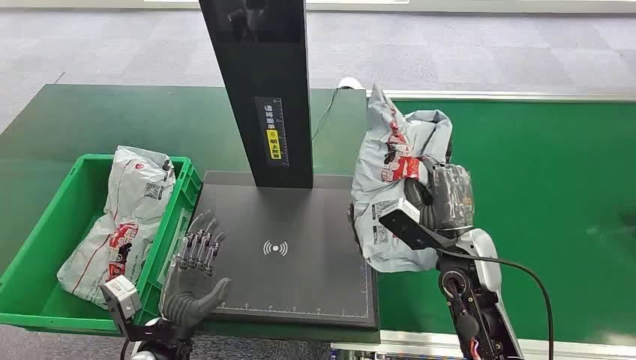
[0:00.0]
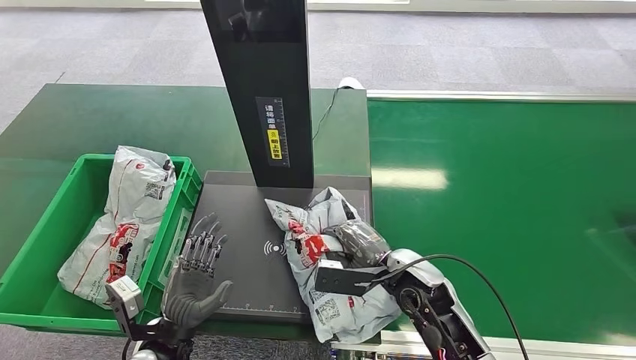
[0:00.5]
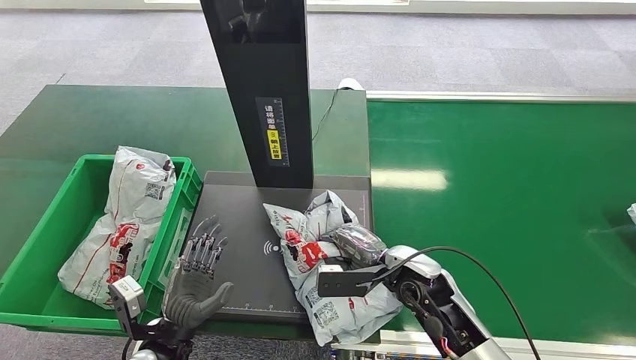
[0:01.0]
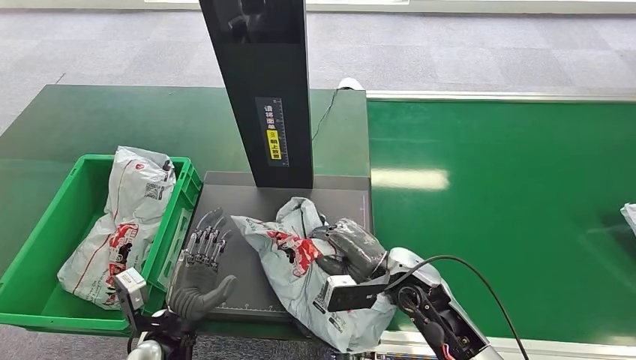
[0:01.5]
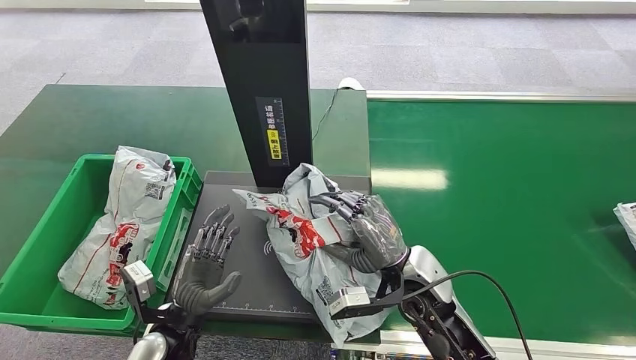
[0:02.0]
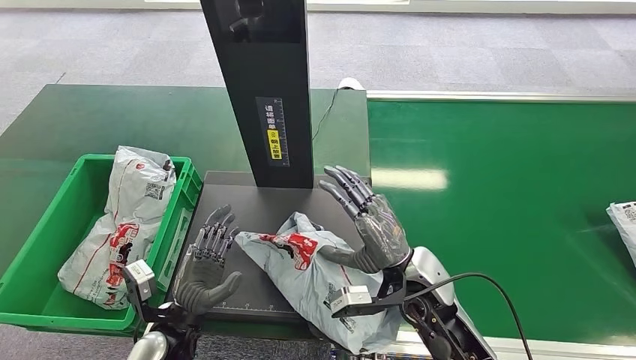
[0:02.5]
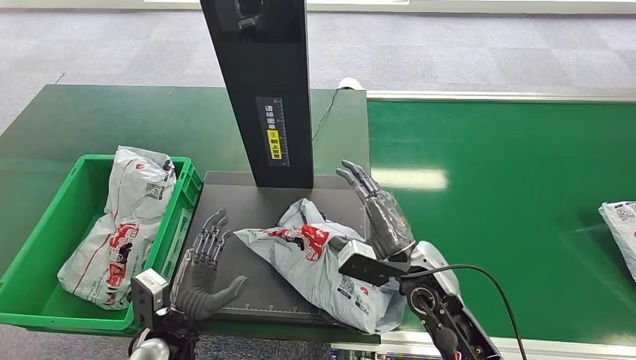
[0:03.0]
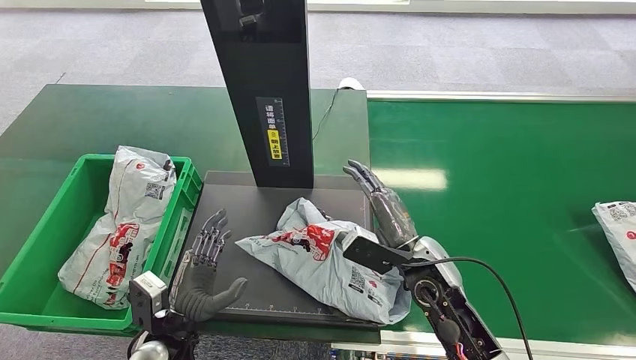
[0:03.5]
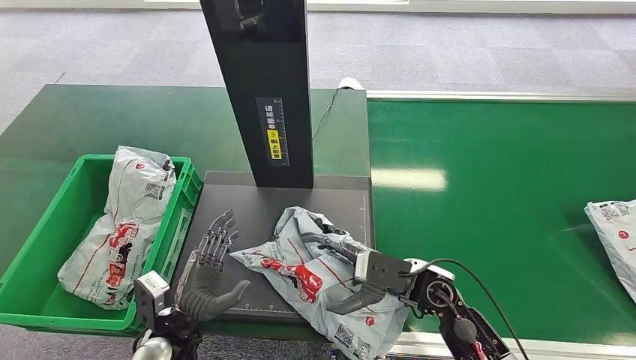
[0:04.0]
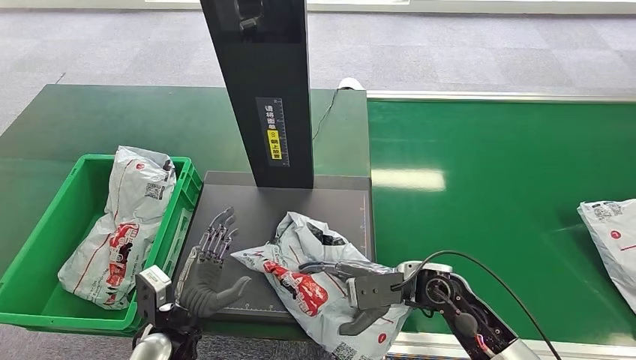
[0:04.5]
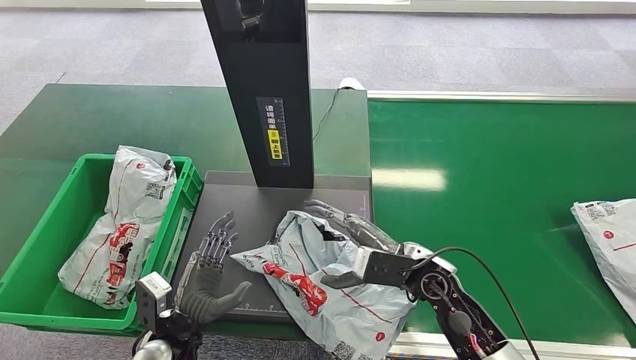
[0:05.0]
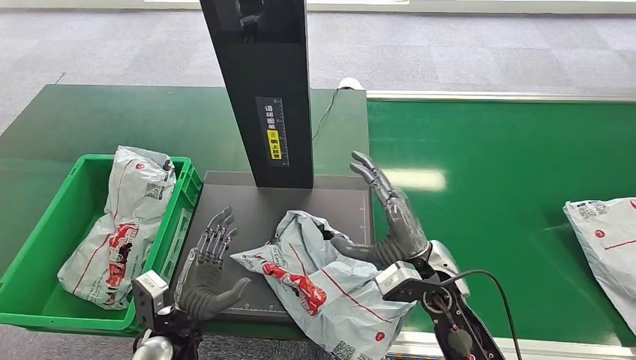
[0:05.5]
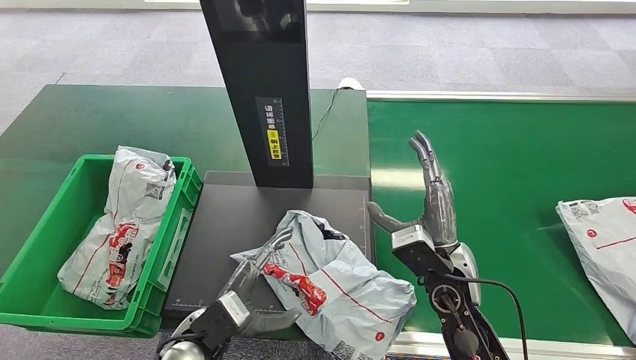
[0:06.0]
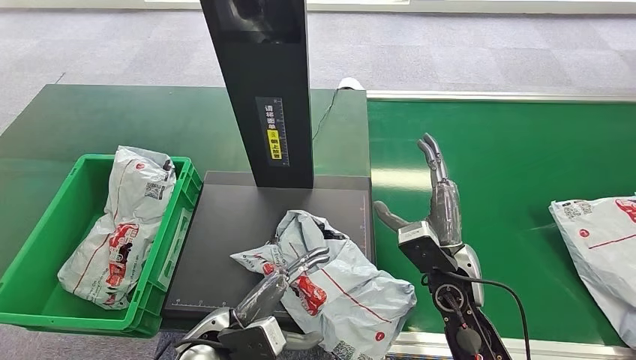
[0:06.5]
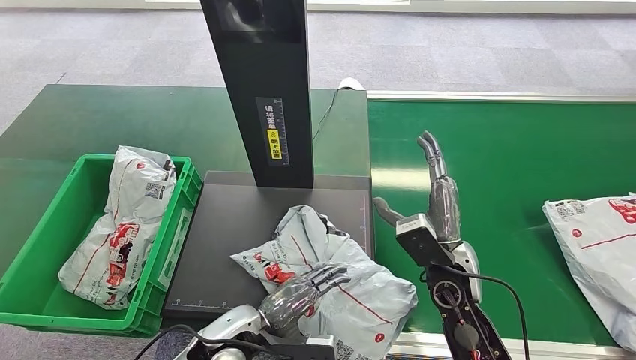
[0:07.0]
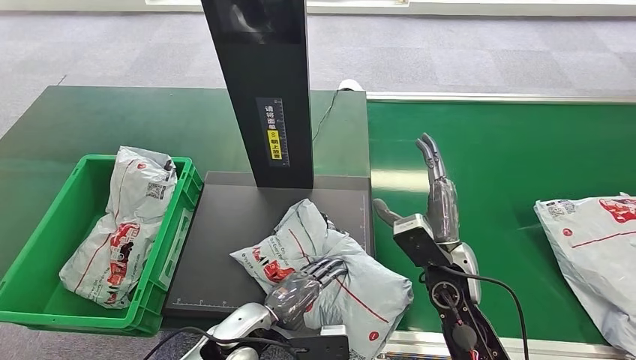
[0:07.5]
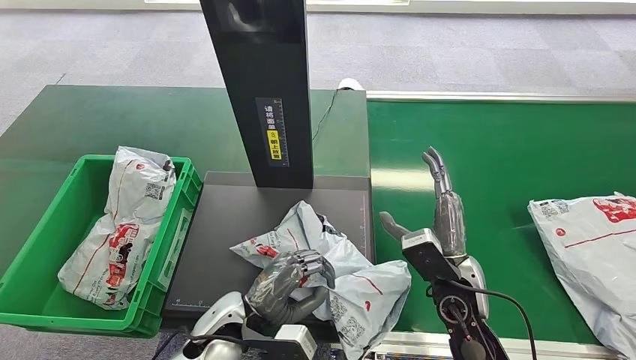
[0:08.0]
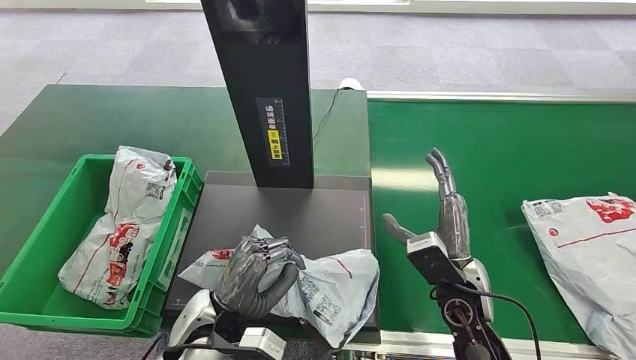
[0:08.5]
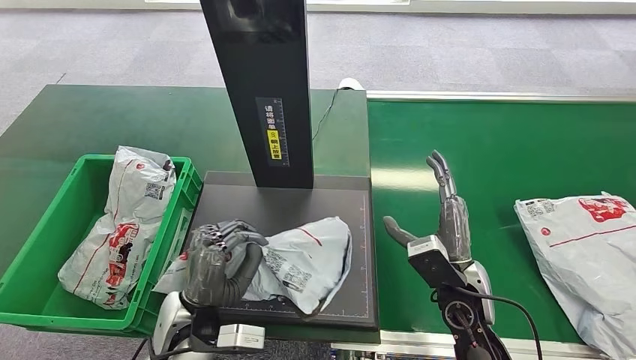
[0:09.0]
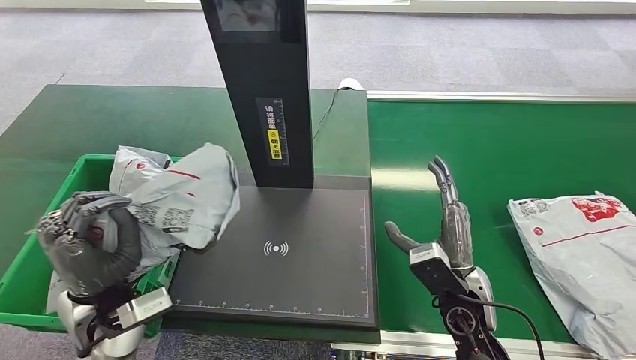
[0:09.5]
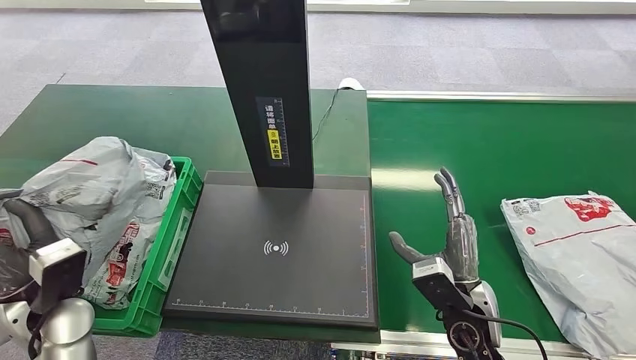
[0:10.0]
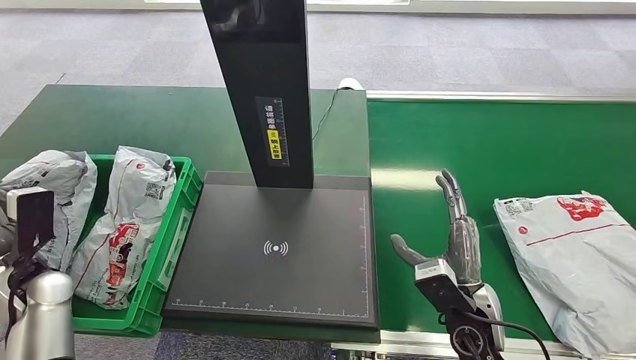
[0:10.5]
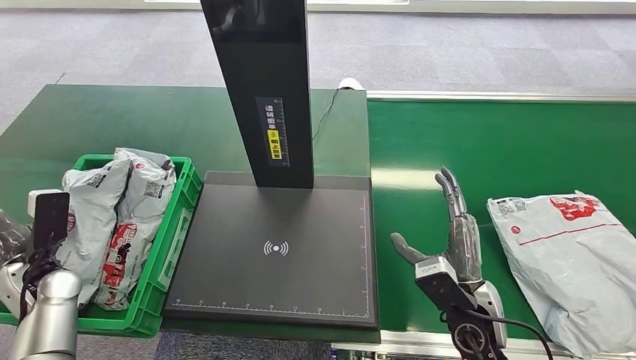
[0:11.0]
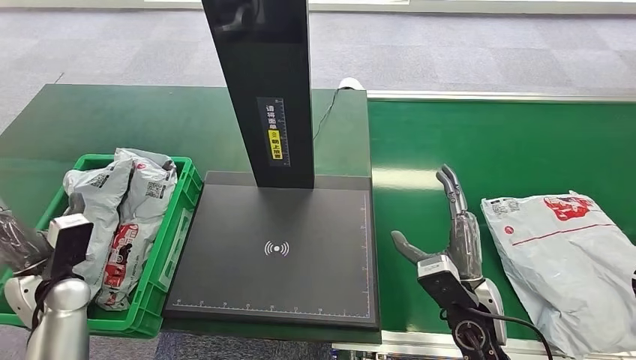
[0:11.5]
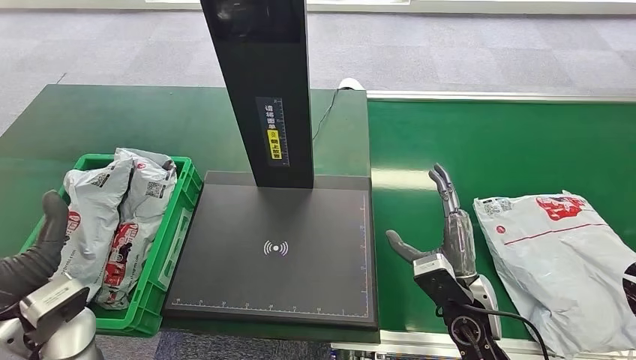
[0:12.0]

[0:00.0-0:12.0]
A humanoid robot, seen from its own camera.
Task of the whole recording: Weigh the package on the weighing device and place it in the left basket.
0:06.0 to 0:08.0: The left hand changes place by approximately 5 cm.
0:10.0 to 0:12.0: The left hand travels to the left and back again, some 10 cm each way.
